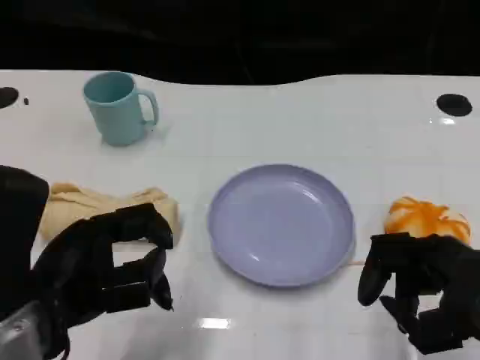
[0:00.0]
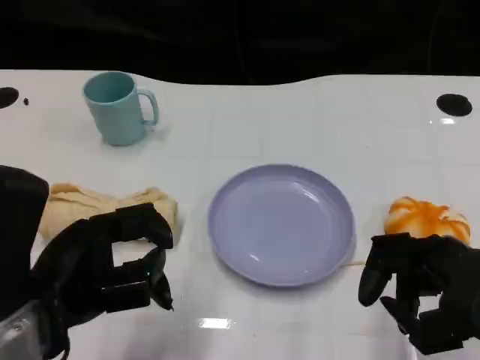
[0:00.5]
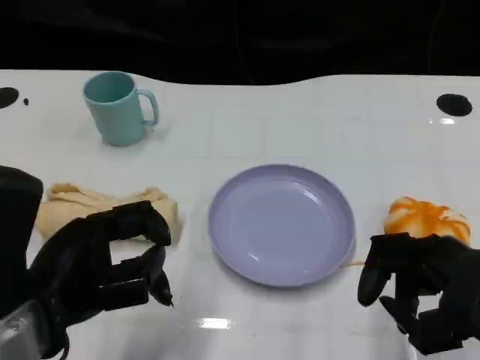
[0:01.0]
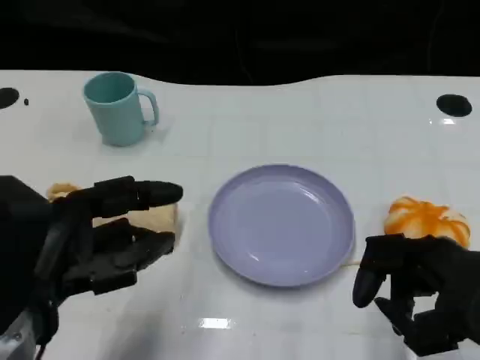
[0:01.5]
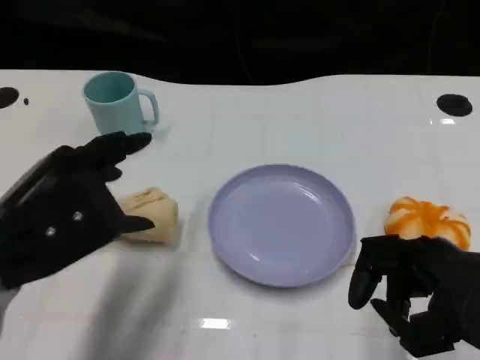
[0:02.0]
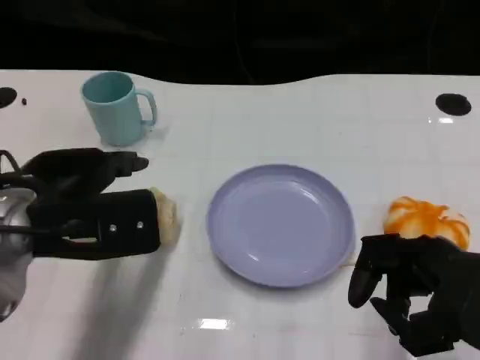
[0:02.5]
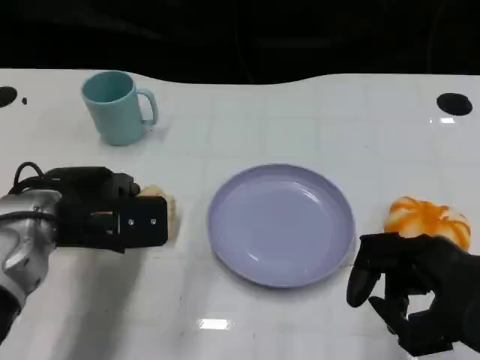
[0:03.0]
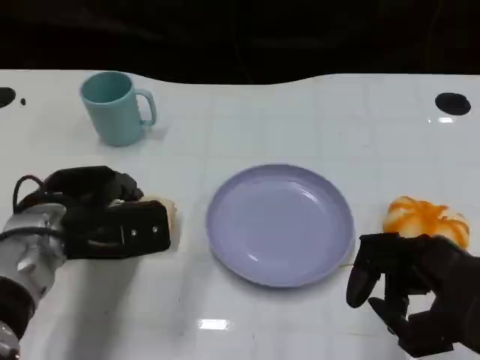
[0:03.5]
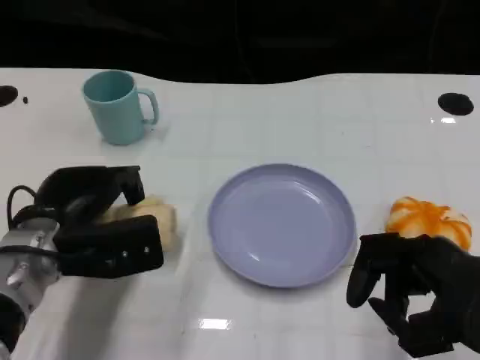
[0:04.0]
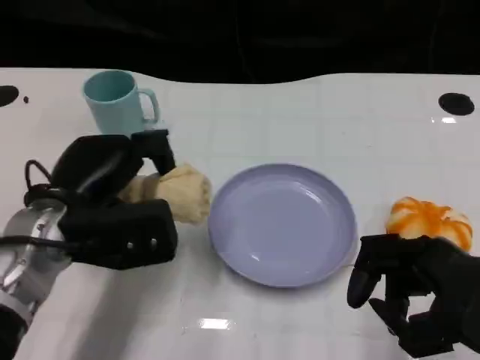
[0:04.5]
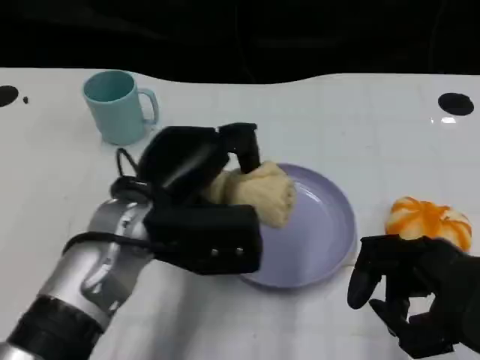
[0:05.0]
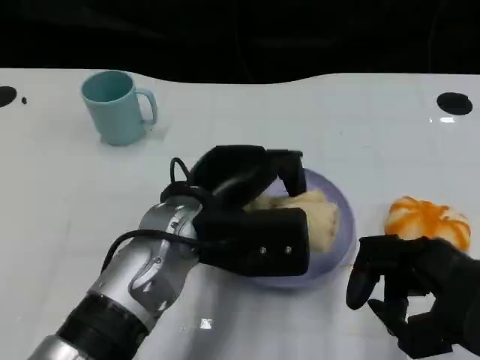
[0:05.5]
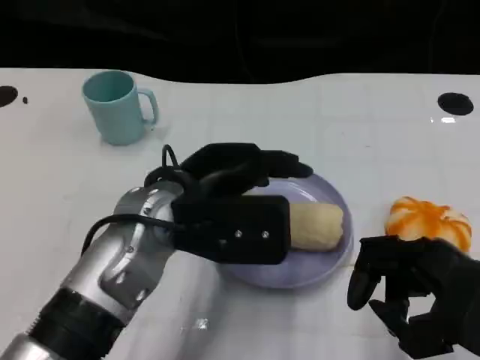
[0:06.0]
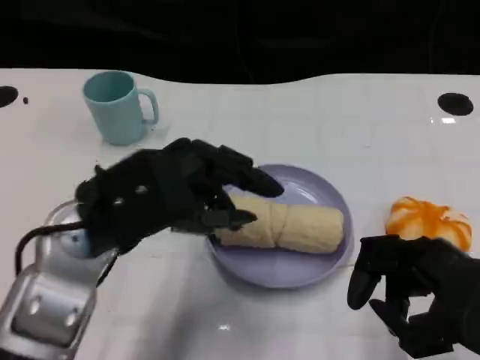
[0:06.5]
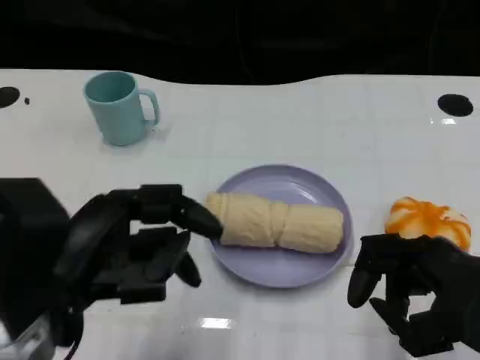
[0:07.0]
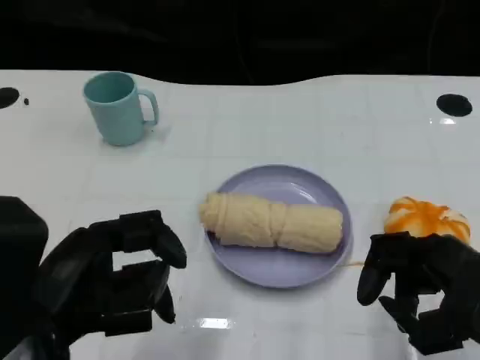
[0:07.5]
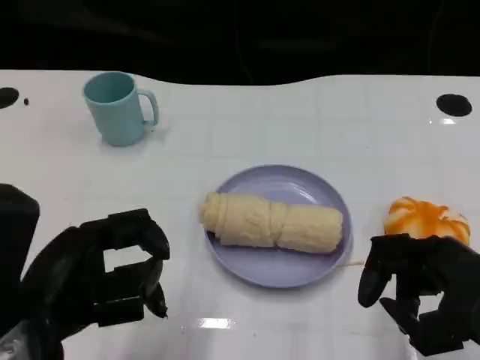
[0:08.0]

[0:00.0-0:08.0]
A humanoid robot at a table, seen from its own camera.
Task of the whole recording: Grasp the towel on the left side of the plate with the left hand and place it into the plate.
0:02.0 to 0:04.0: The left hand heads downward and forward, covering about 10 cm.
0:04.0 to 0:06.0: The left hand travels to the right and upward by roughly 15 cm.
0:06.0 to 0:08.0: The left hand shifts roughly 15 cm to the left and backward.

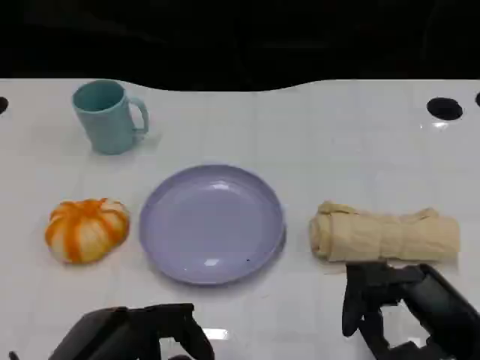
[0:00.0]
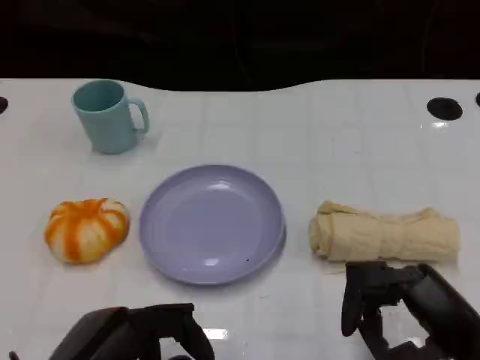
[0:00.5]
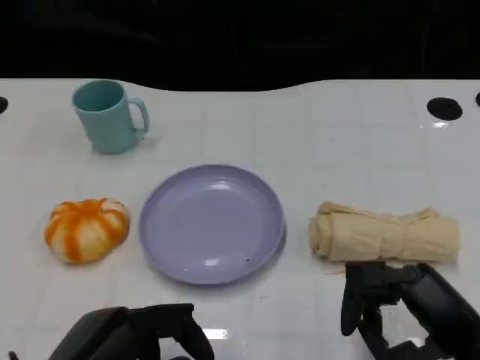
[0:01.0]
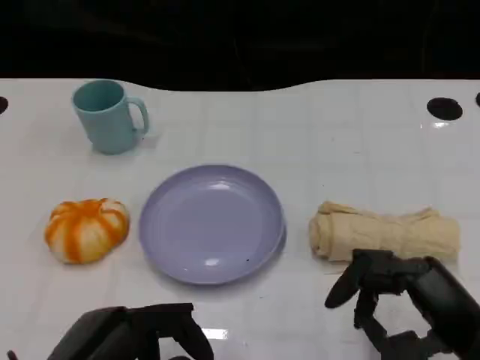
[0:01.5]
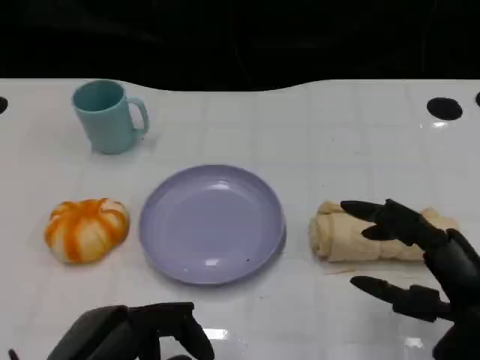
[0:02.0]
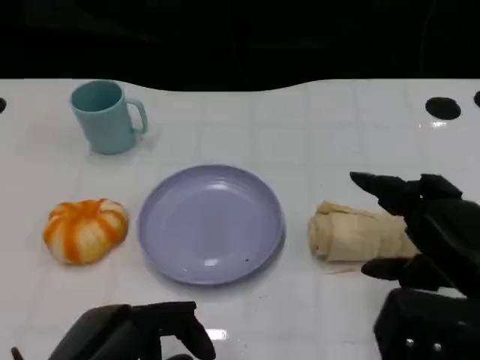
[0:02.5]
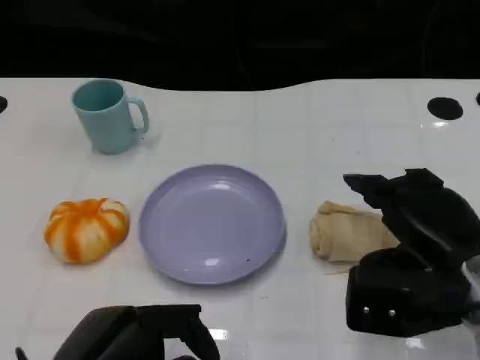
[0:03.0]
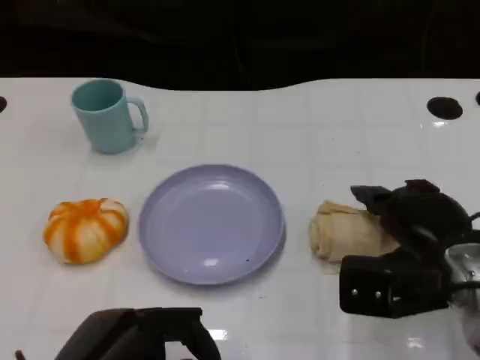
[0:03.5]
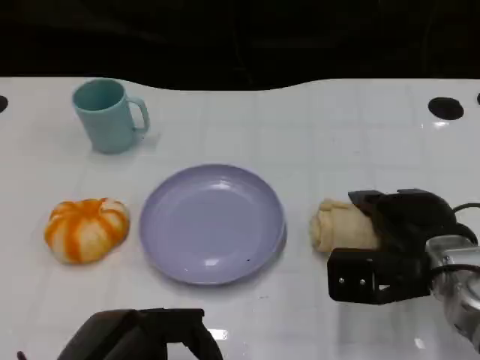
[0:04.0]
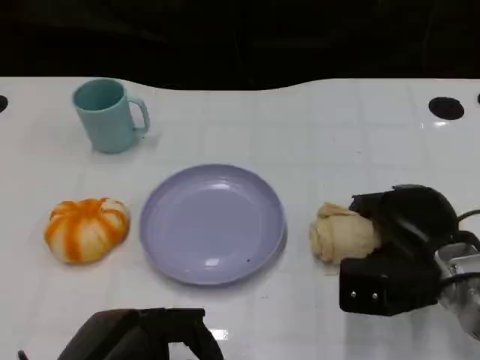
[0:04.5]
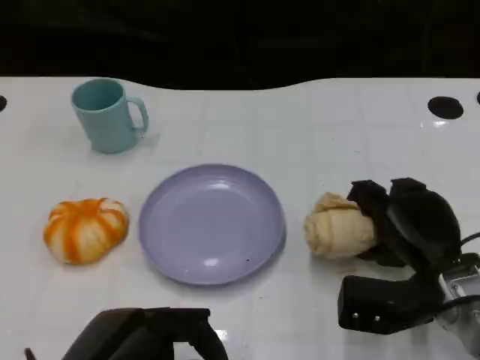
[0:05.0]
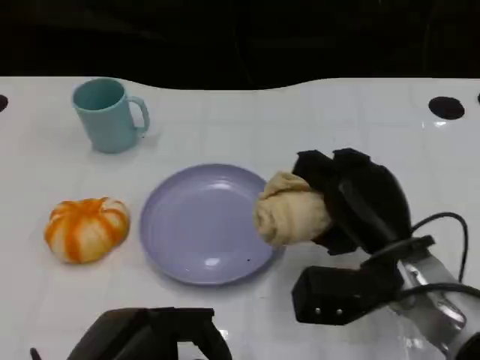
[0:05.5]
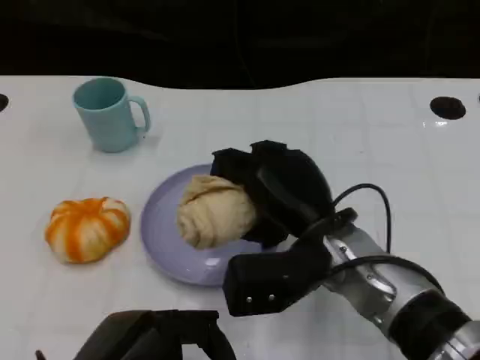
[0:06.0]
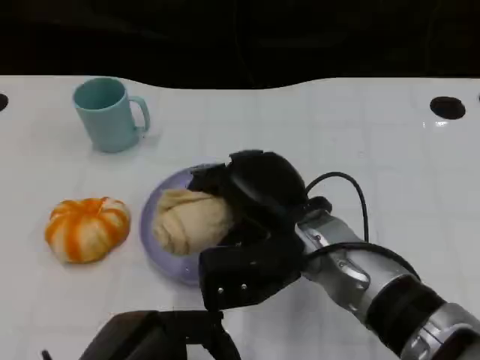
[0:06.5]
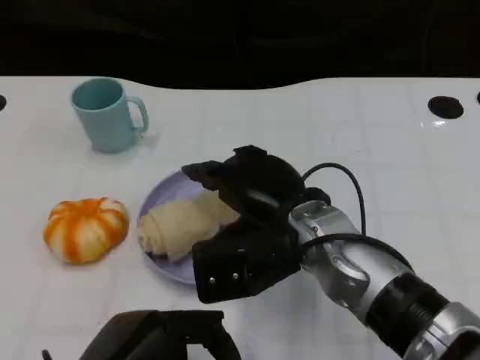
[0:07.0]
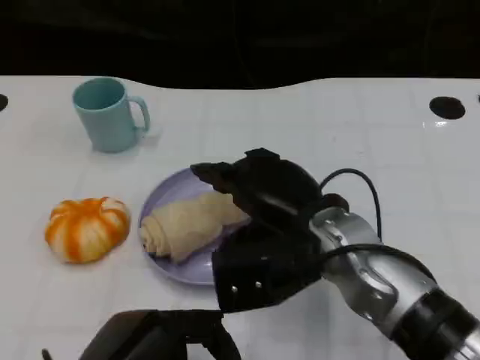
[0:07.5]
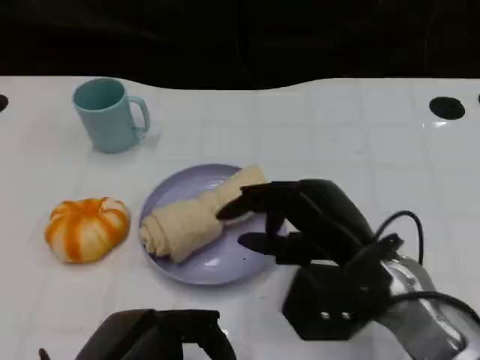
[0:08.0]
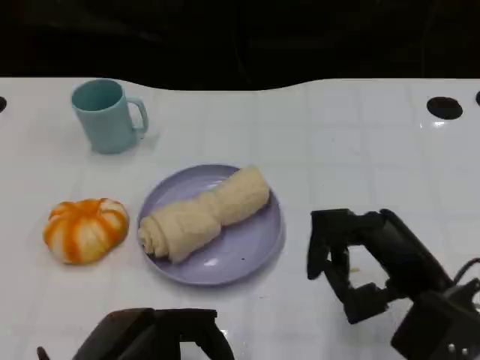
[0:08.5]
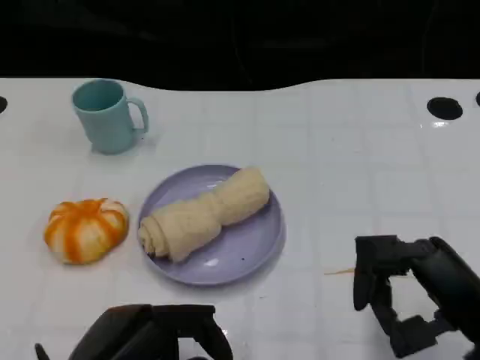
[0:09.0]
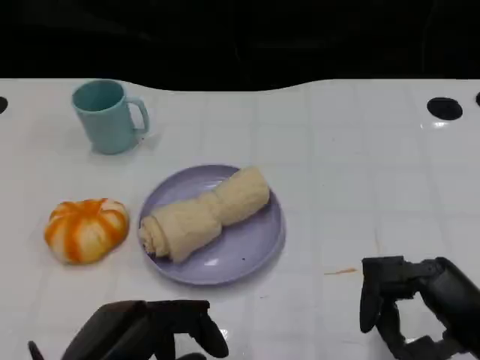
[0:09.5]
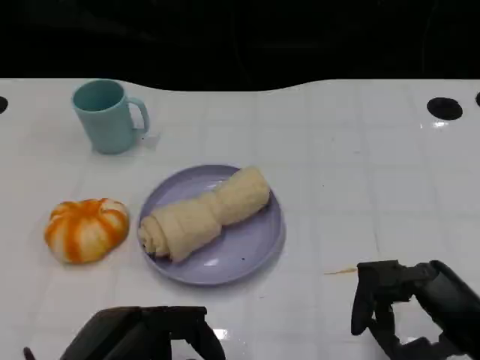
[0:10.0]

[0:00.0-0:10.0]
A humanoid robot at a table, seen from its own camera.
Task of the whole recording: Grasp the towel on the left side of the plate with the left hand and place it into the plate.
0:00.0 to 0:02.0: The hands make only small movements.
0:02.0 to 0:04.0: The right hand heads forward, covering some 10 cm.
0:04.0 to 0:06.0: The right hand heads to the left, covering some 10 cm.
0:06.0 to 0:08.0: The right hand is displaced to the right by about 5 cm.
0:08.0 to 0:10.0: The right hand heads to the right and backward, covering roughly 15 cm.

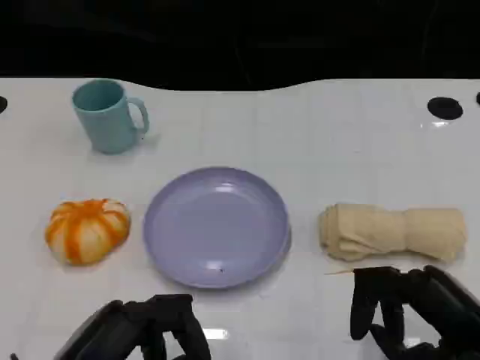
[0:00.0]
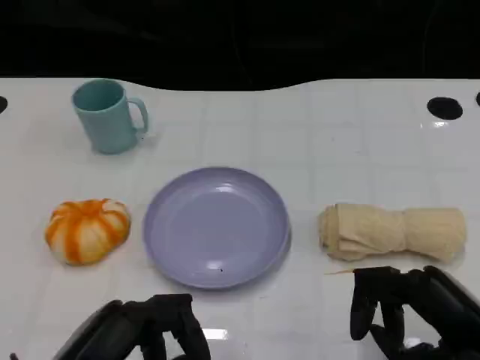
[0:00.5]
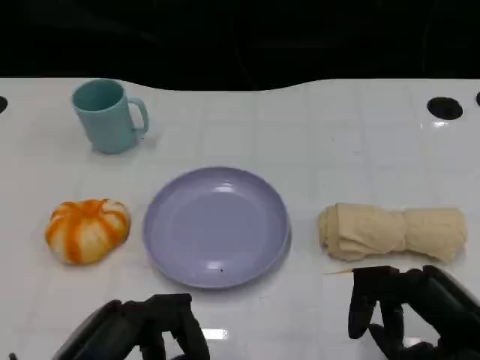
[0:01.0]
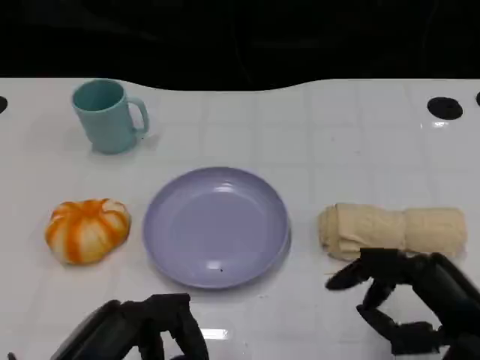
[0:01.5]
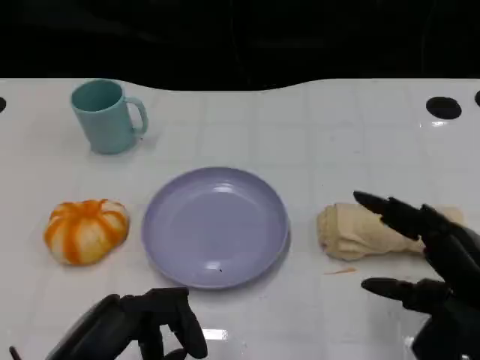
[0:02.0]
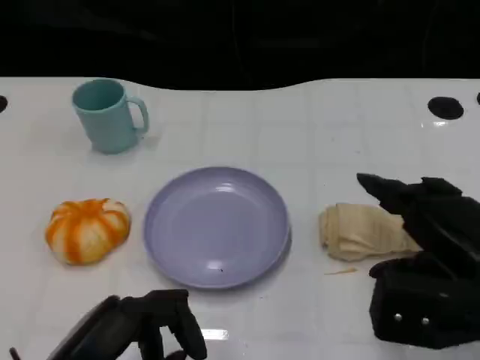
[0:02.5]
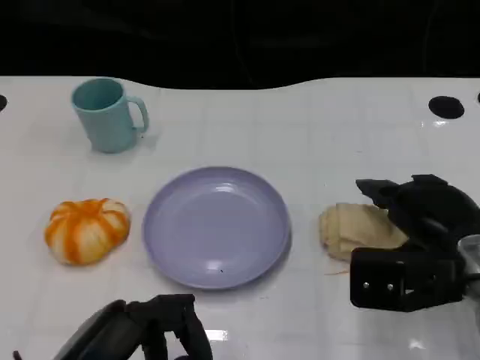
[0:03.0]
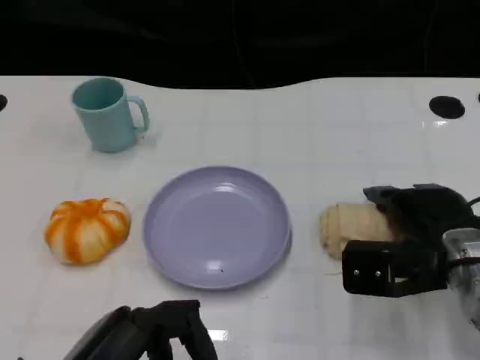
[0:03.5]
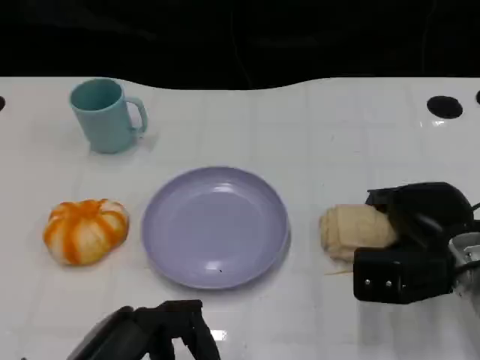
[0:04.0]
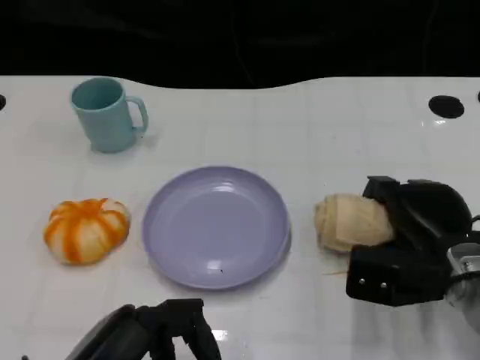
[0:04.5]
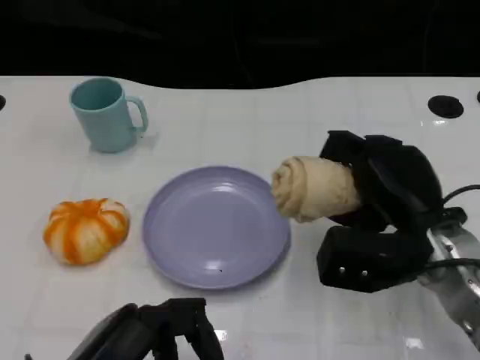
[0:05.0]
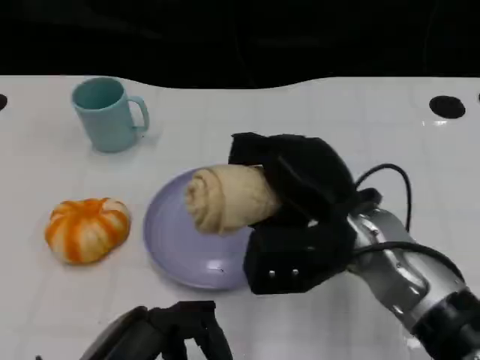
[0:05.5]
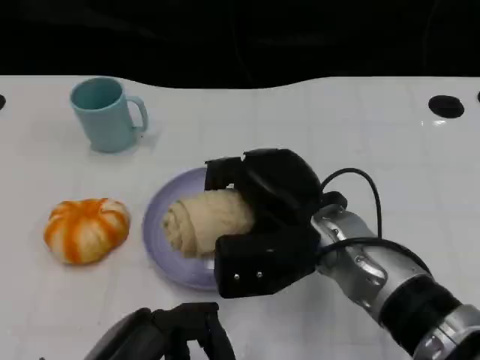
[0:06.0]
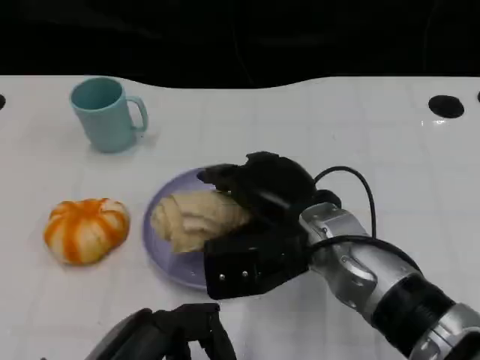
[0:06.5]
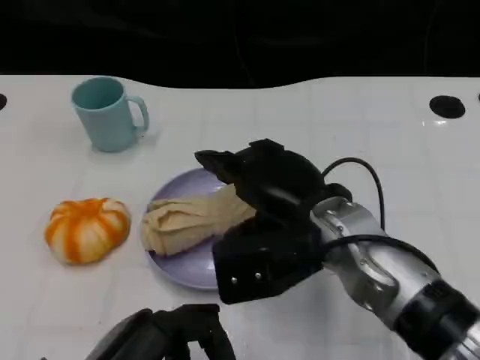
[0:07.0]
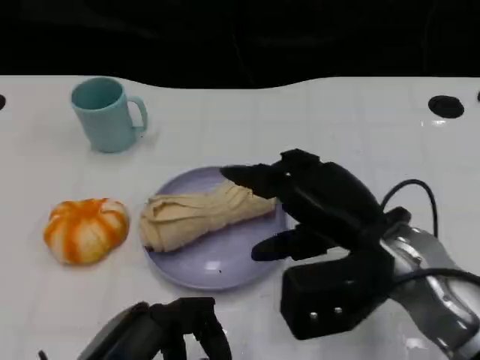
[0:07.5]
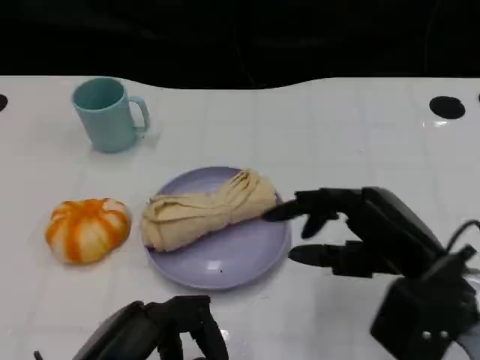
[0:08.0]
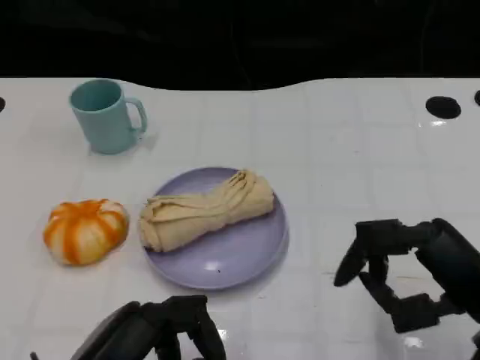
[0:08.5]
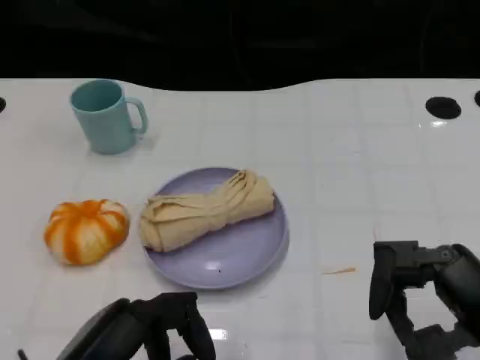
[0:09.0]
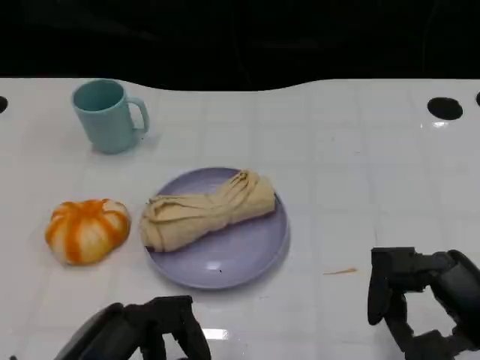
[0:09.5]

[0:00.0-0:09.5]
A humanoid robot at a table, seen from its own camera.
Task of the whole recording: Grasp the towel on the left side of the plate with the left hand and place it into the plate.
0:00.0 to 0:02.0: There are only small adjustments of the hands.
0:02.0 to 0:04.0: The right hand moves forward and downward, roughly 15 cm.
0:04.0 to 0:05.5: The right hand travels to the left and upward by roughly 15 cm.
0:05.5 to 0:07.5: The right hand changes place by approximately 5 cm.
0:07.5 to 0:09.5: The right hand travels to the right and backward by approximately 15 cm.
